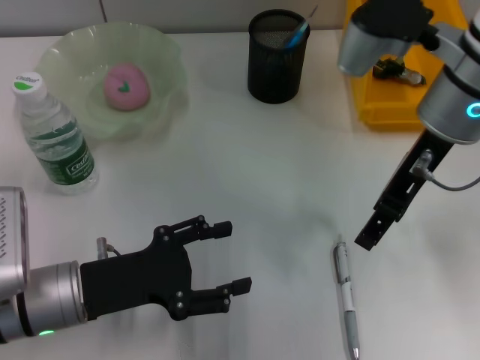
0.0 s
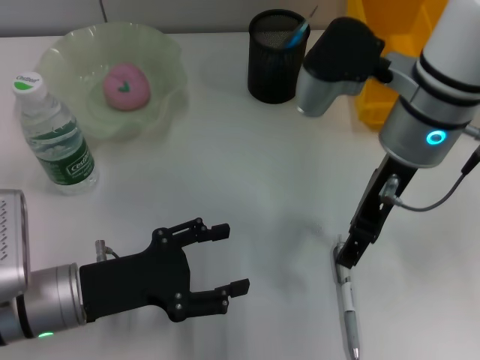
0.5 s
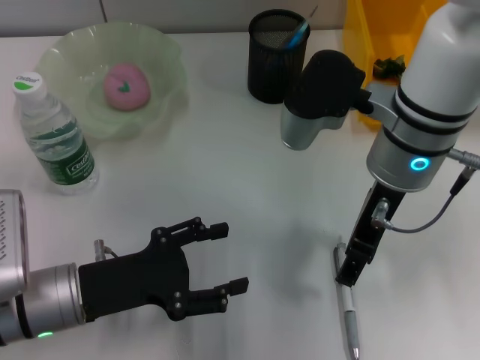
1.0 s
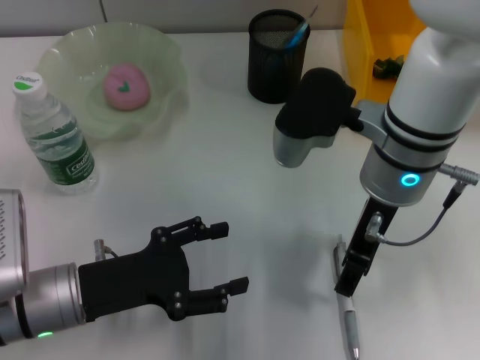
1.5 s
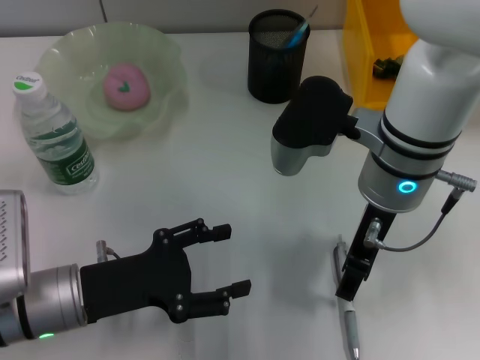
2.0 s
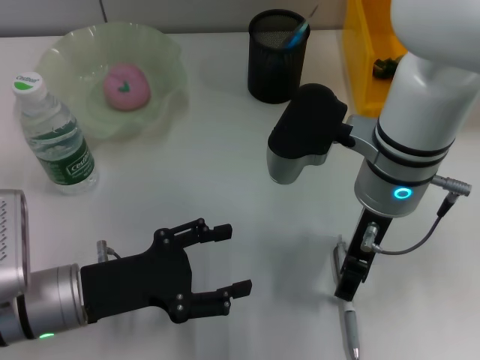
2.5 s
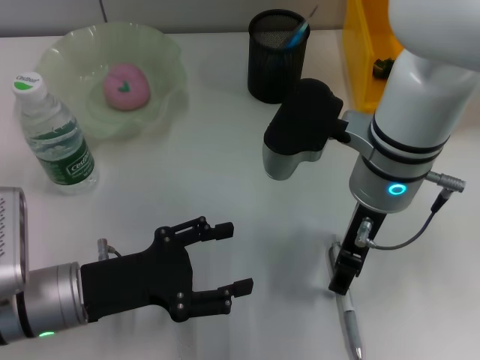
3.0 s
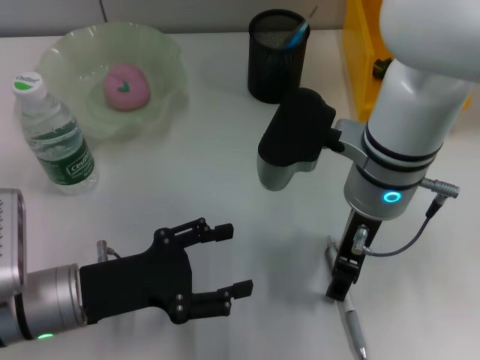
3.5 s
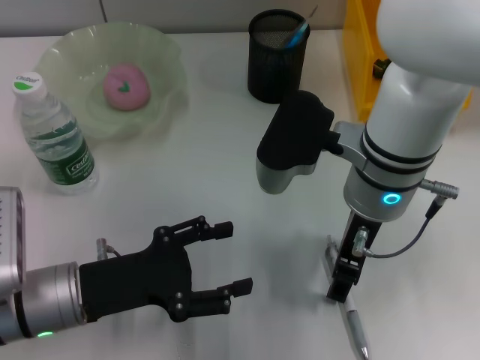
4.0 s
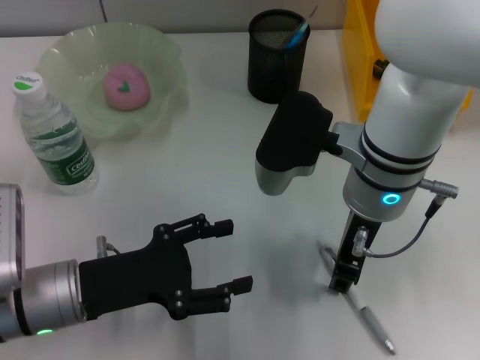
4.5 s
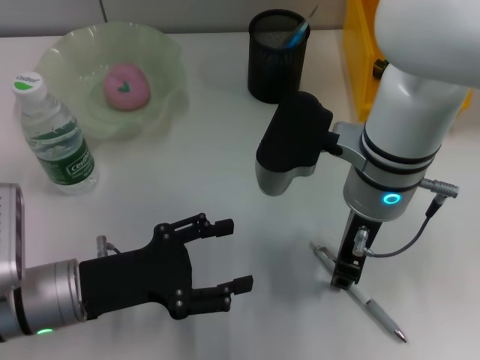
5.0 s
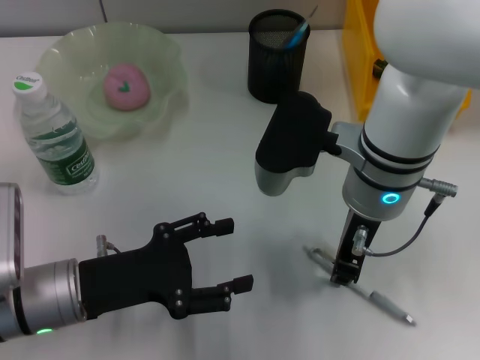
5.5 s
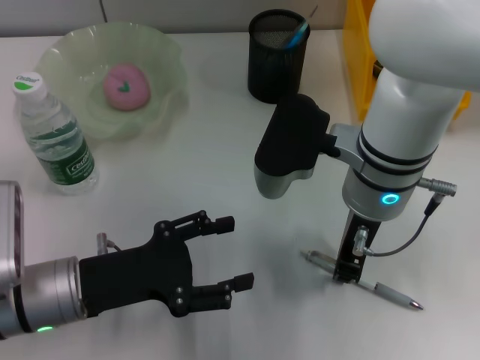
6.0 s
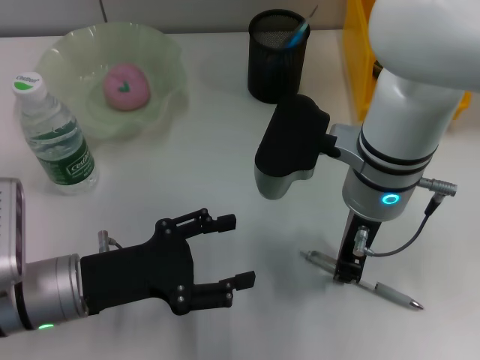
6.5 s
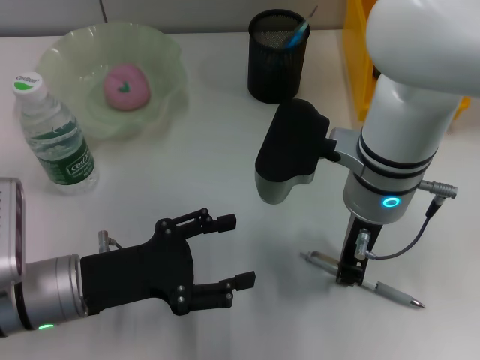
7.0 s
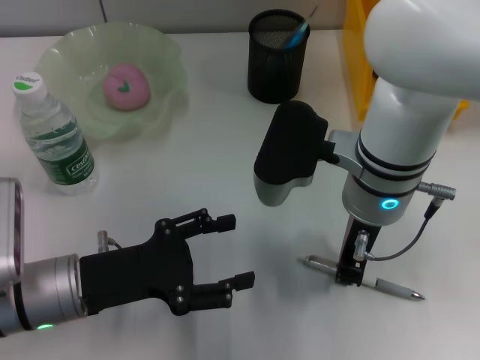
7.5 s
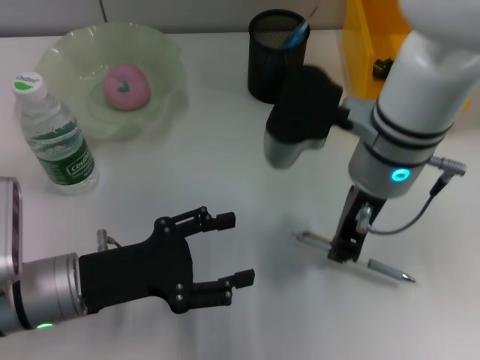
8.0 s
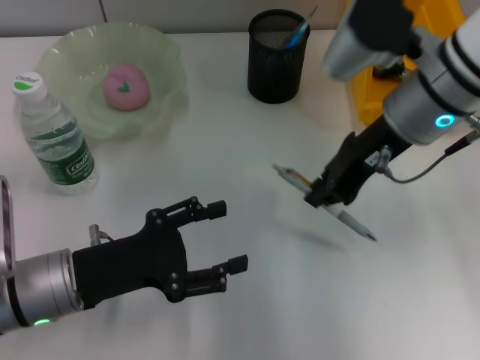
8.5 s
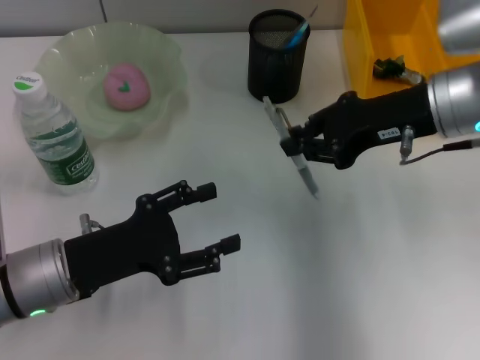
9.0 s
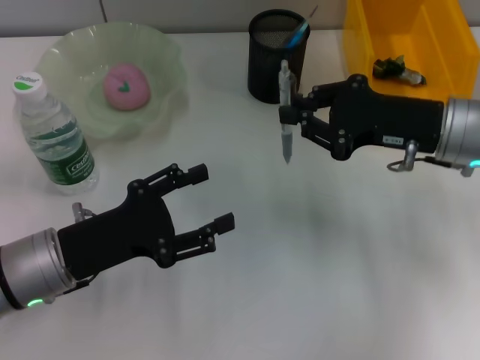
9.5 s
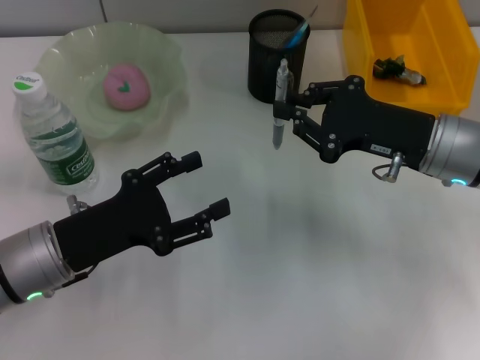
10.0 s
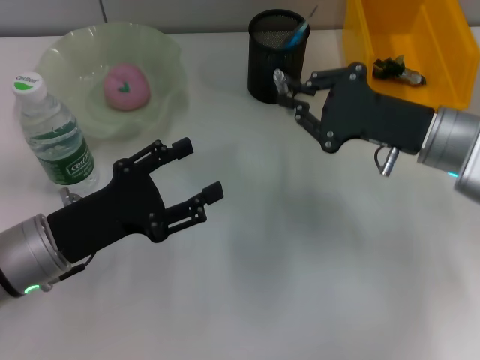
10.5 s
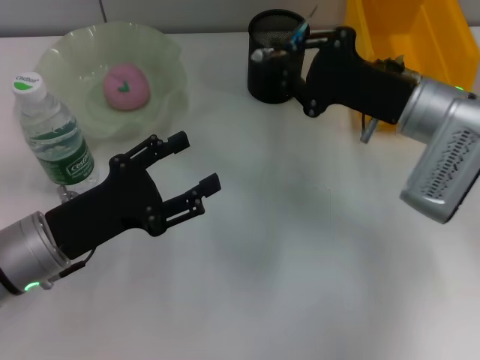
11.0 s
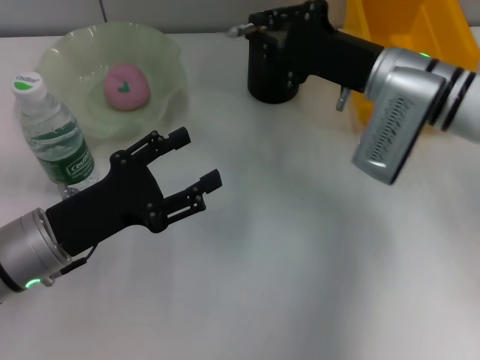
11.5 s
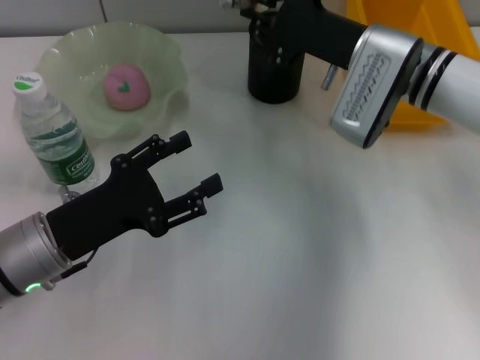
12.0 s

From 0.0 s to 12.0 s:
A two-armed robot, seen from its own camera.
Step, from 0.0 s to 7.5 s: Grab the gray spring-action pen with the right hand.
From 0.0 s to 2.0 s: The right gripper travels downward and to the left by some 5 cm.
From 2.0 s to 4.0 s: The grippers move only a little.
From 4.0 s to 6.0 s: The right gripper closes its fingers.
From 6.0 s to 8.0 s: The grippers move only a little.
From 8.0 s to 10.0 s: The right gripper moves to the right and downward, about 10 cm.
From 10.0 s to 12.0 s: The right gripper travels forward and to the left by roughly 10 cm.

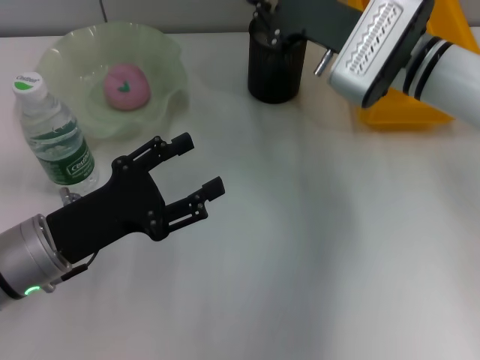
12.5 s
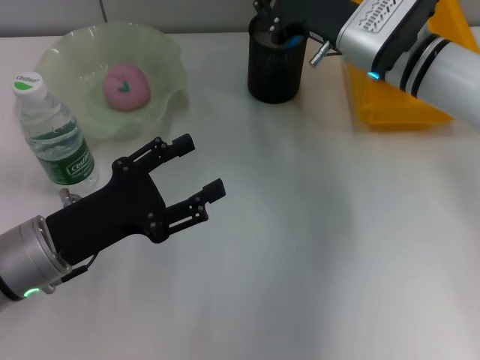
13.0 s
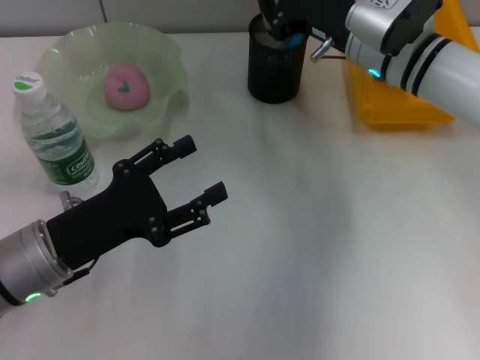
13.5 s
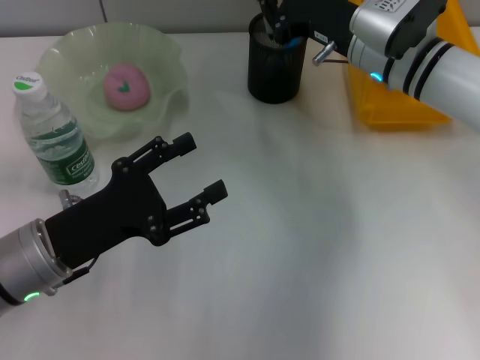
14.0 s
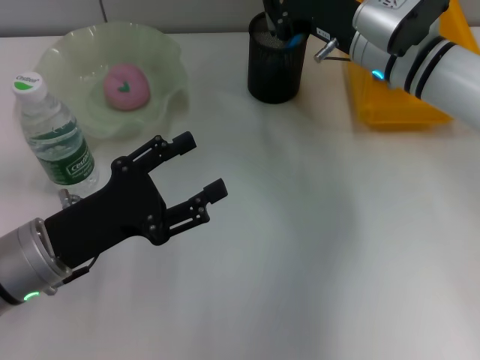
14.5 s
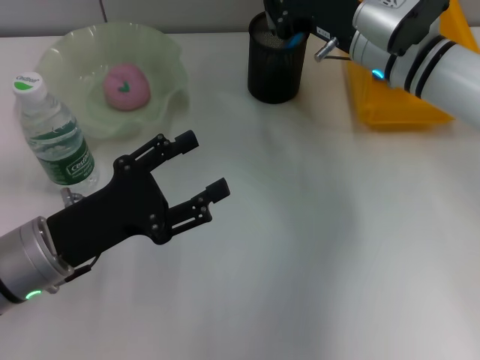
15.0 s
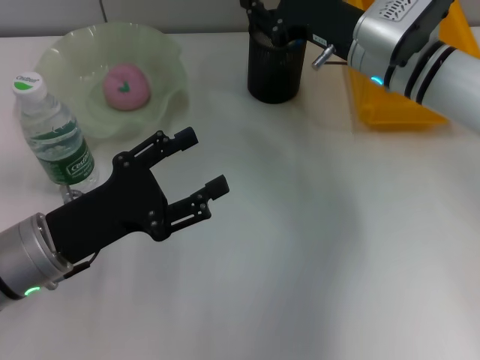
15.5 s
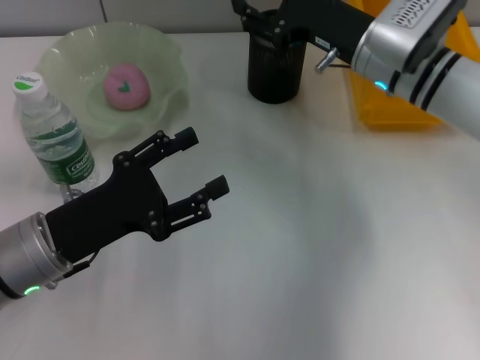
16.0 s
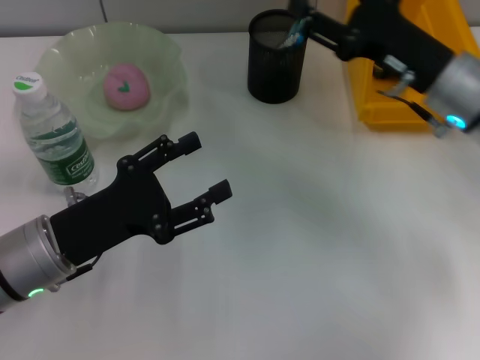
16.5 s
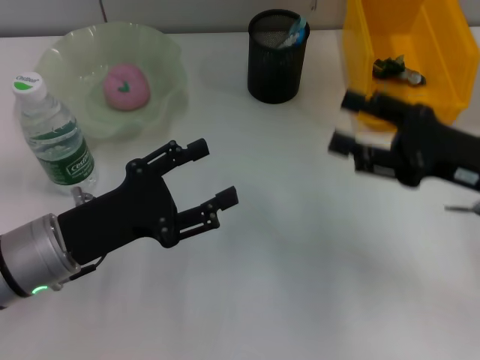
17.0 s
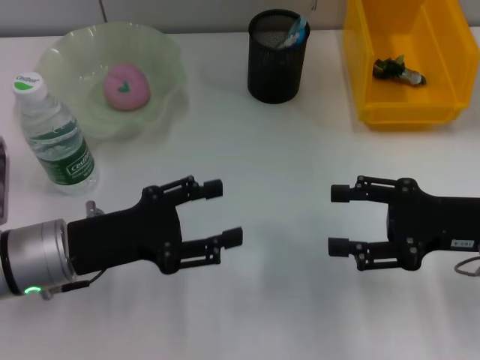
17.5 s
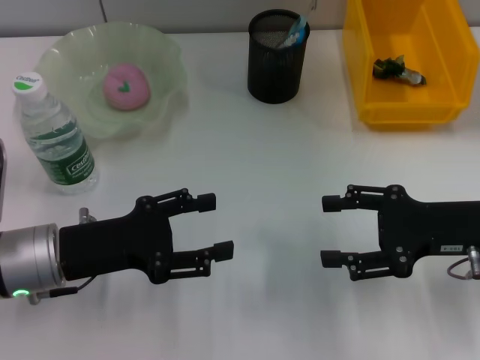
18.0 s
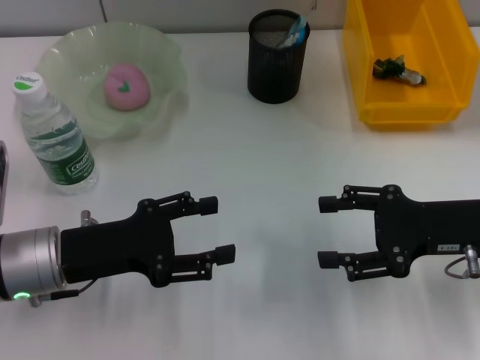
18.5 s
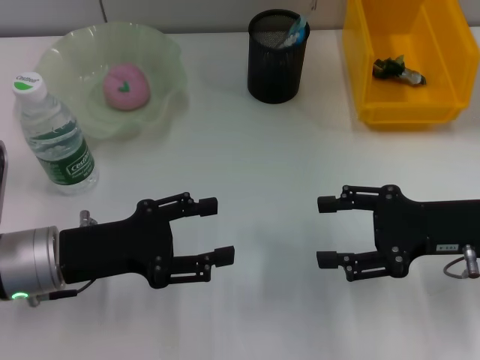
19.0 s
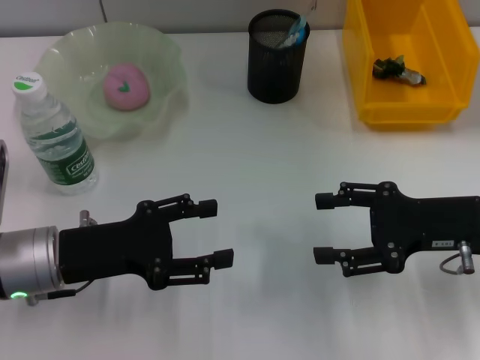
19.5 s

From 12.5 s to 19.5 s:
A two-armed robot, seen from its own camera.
Step, from 12.5 s to 15.0 s: Place the gray spring-action pen into the pen holder with the right hand.
From 14.5 s to 16.0 s: The right gripper opens its fingers.
From 16.0 s to 17.5 s: The right gripper goes some 20 cm backward and to the right.
From 17.5 s to 19.5 s: The grippers stay close to where they were, moving slightly.
